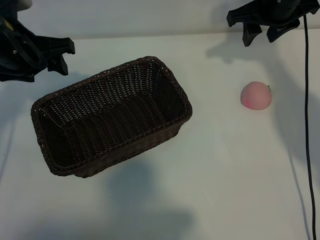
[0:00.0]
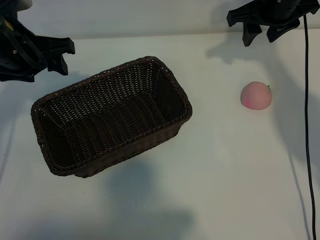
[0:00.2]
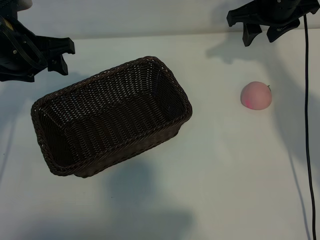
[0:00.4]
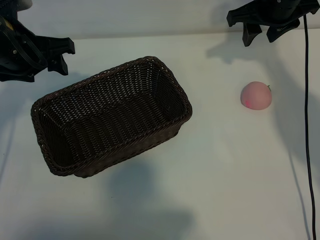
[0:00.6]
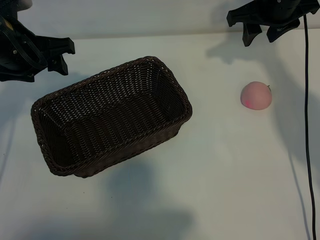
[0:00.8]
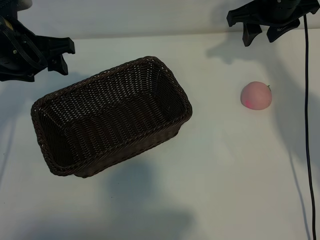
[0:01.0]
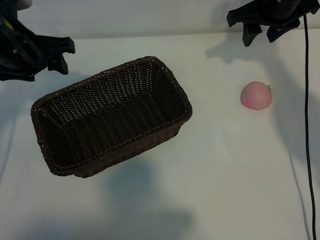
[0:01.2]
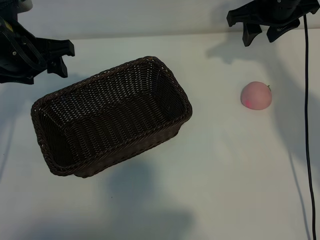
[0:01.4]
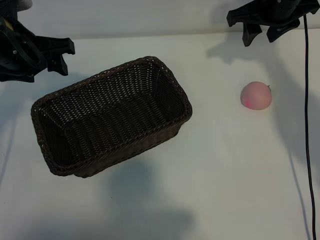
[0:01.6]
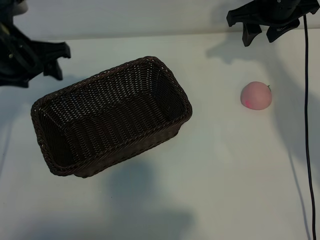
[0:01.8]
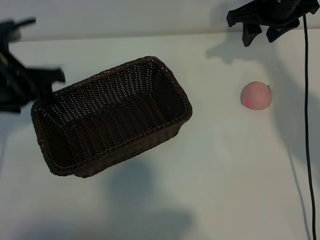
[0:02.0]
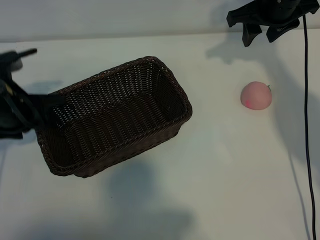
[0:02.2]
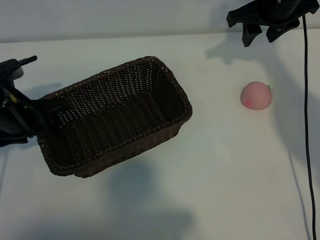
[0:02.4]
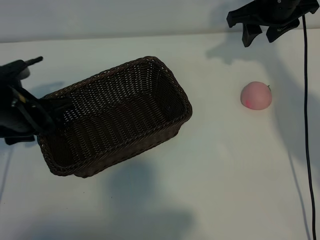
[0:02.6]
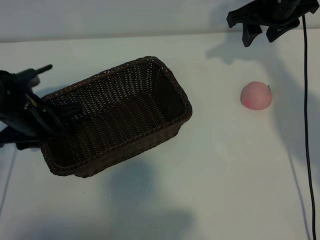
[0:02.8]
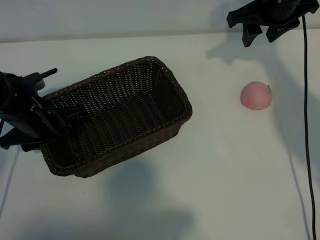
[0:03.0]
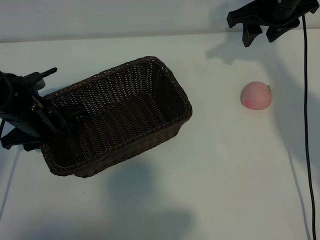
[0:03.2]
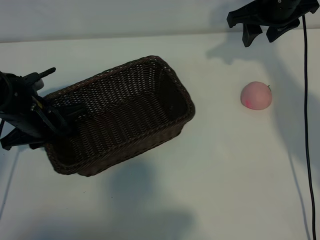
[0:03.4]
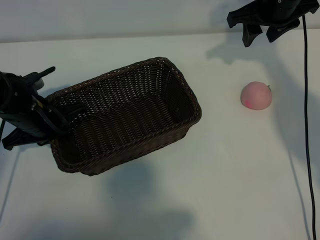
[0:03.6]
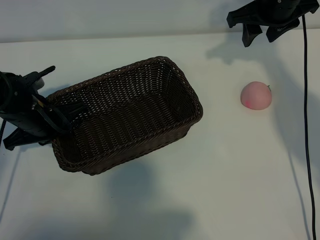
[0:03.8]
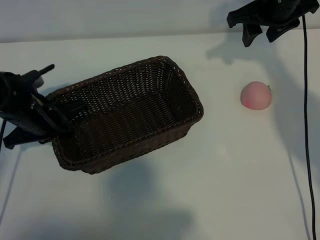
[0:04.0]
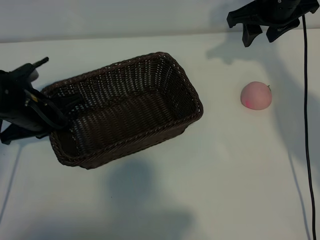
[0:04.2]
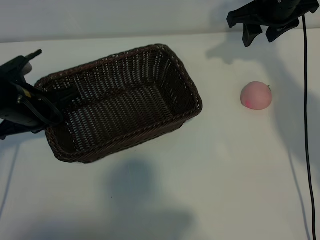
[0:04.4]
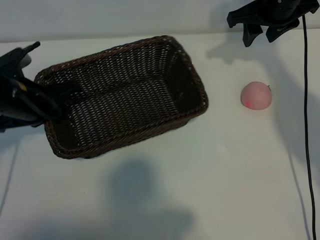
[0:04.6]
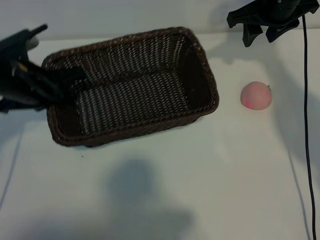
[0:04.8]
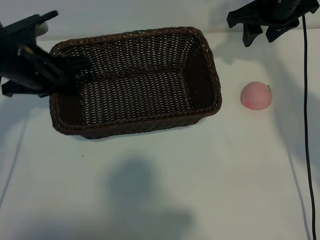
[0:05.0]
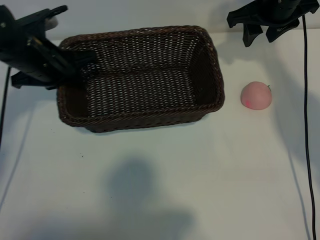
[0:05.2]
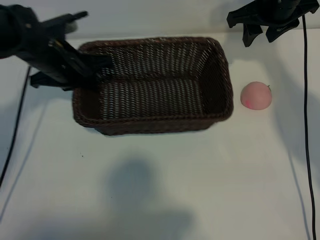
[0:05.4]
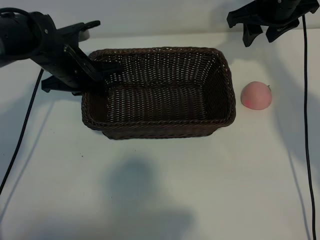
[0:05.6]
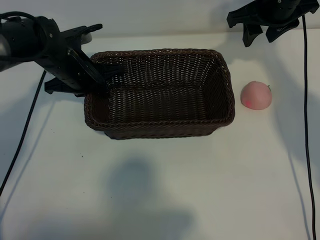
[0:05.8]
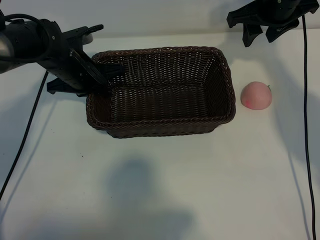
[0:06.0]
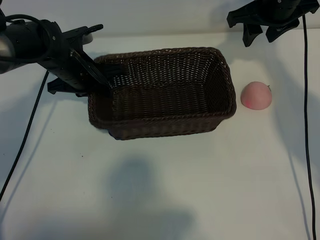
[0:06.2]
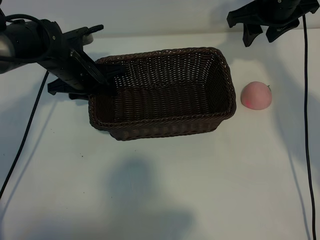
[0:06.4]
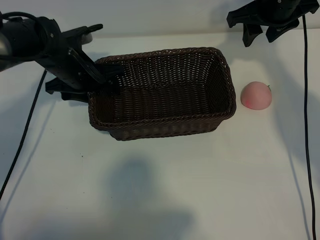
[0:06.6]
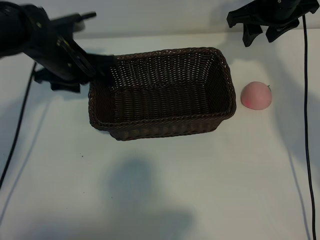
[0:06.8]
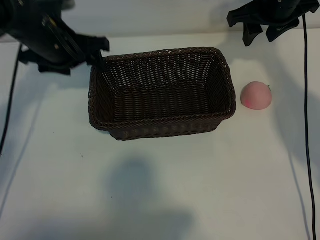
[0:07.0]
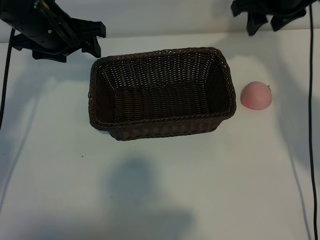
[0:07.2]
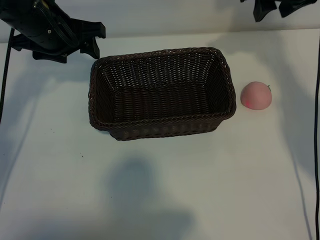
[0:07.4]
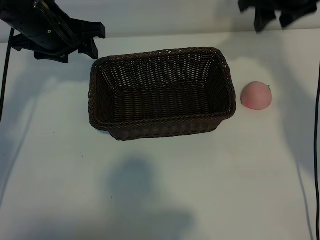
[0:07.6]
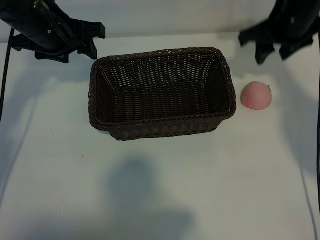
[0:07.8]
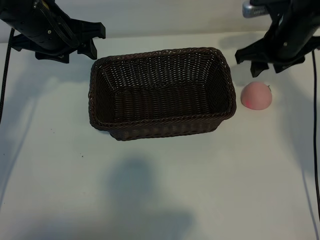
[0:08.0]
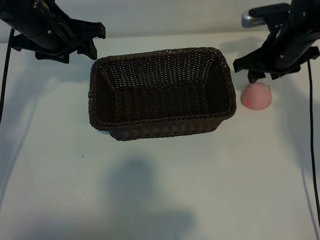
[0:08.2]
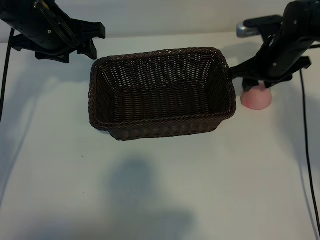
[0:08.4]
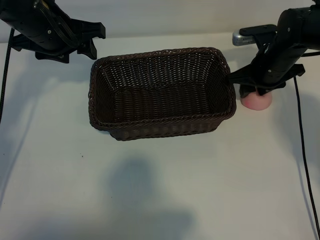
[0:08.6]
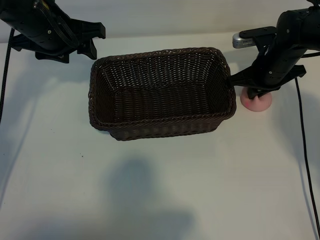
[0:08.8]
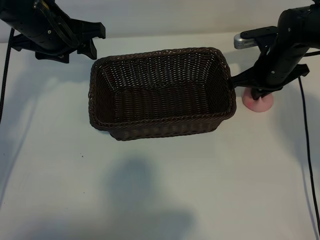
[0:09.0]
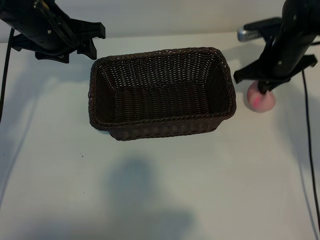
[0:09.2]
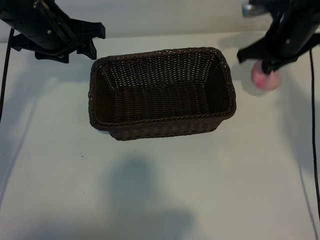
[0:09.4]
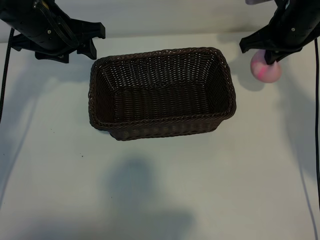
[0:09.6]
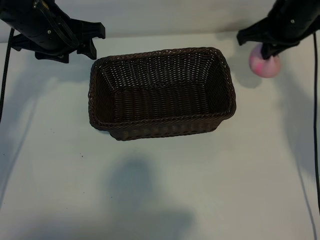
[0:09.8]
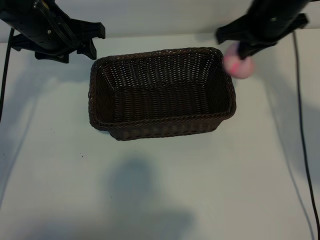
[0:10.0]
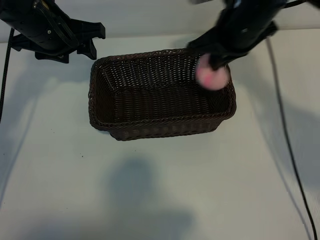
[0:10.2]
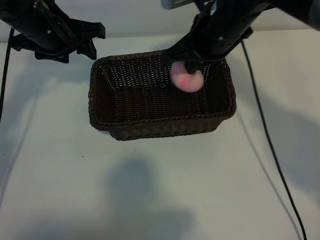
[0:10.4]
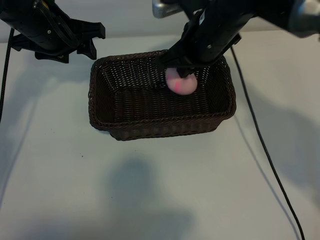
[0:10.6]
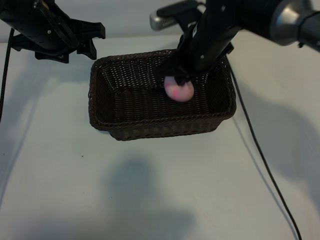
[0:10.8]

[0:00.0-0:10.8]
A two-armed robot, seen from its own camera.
Task of the whole recording: pick up the peach and put it into the basket.
Step, 0:01.4 to 0:03.8: Grasp the basket with left gripper.
Step, 0:04.0 to 0:06.6: Place the basket in the center of view with left gripper.
Step, 0:06.8 to 0:08.8: Grasp the peach with right gripper.
